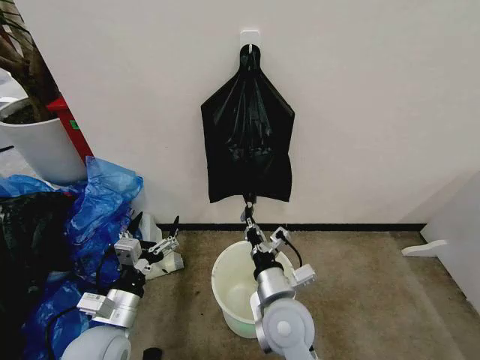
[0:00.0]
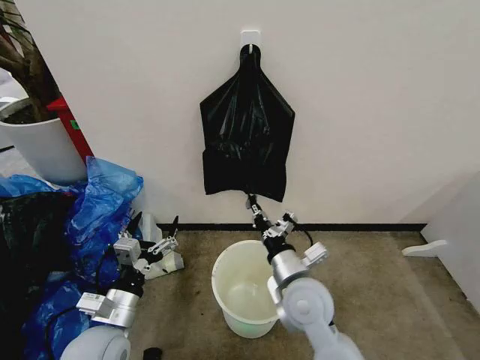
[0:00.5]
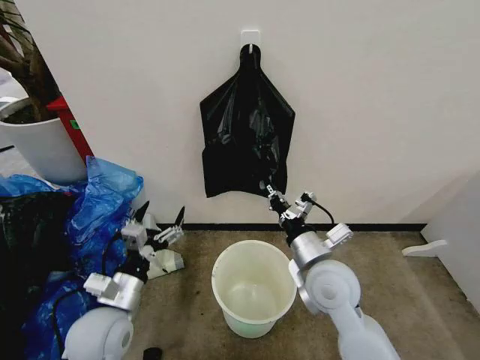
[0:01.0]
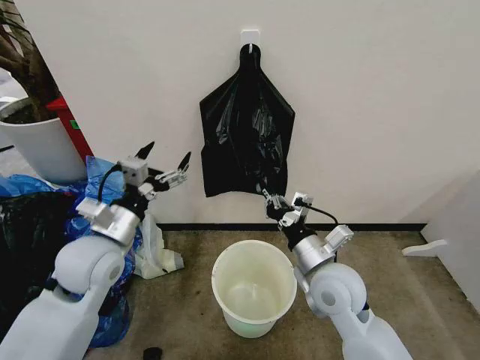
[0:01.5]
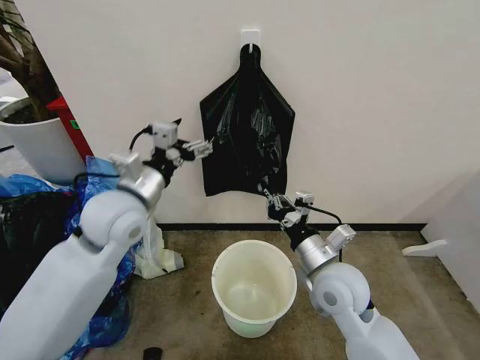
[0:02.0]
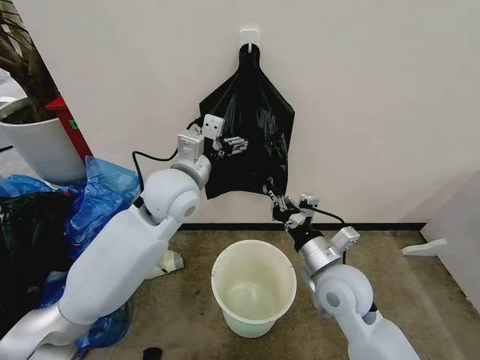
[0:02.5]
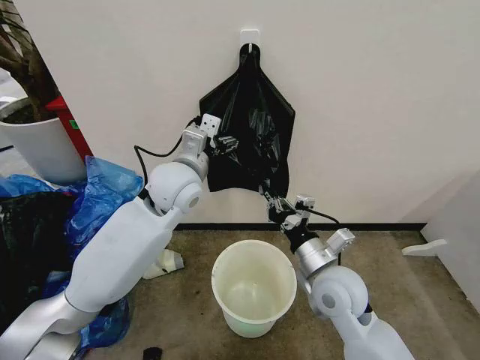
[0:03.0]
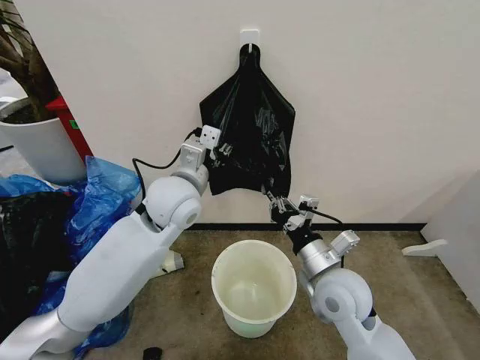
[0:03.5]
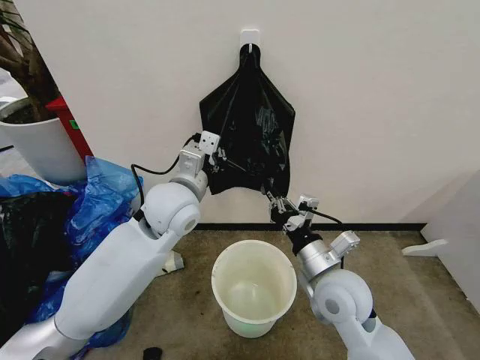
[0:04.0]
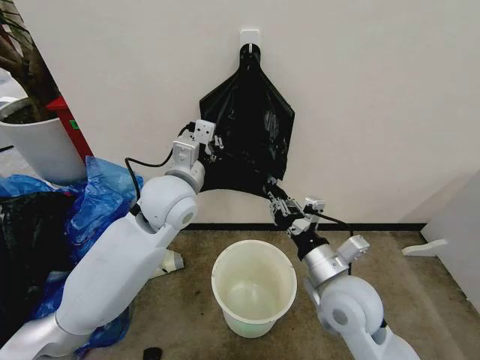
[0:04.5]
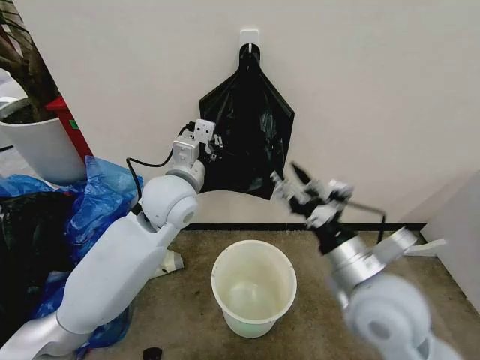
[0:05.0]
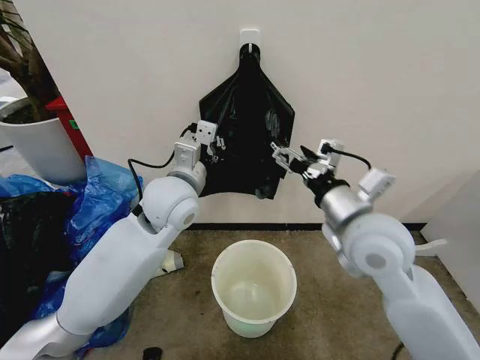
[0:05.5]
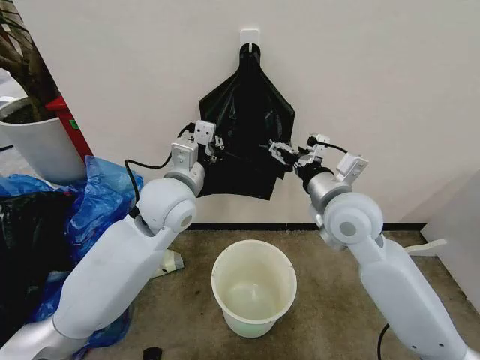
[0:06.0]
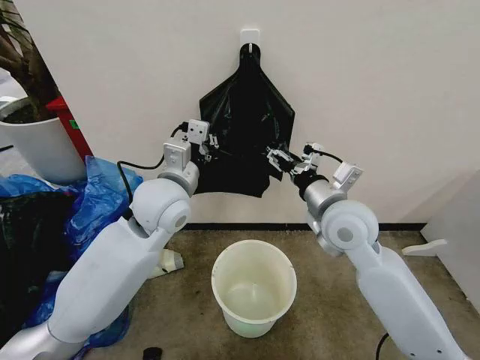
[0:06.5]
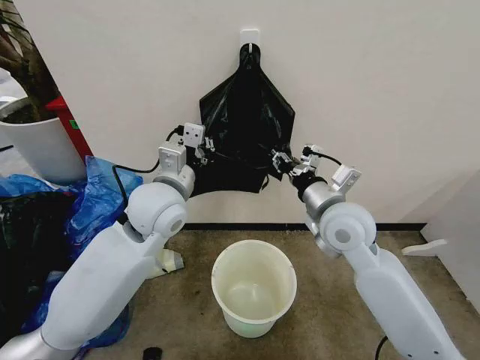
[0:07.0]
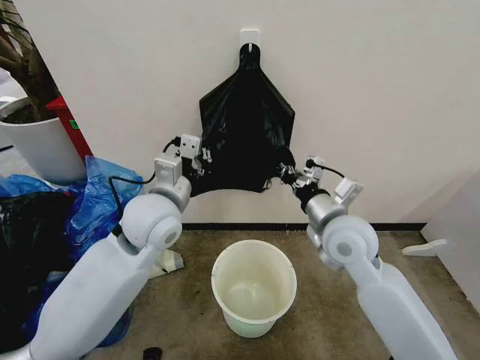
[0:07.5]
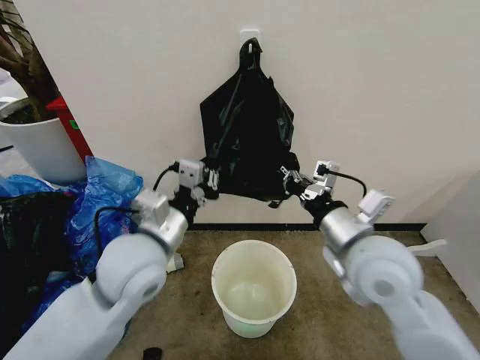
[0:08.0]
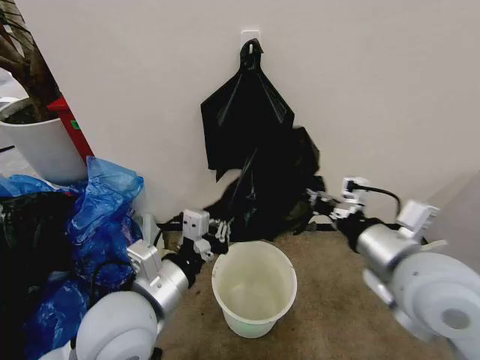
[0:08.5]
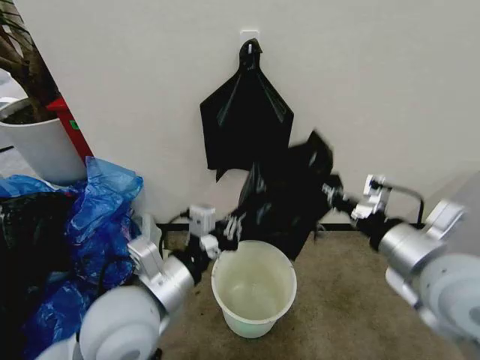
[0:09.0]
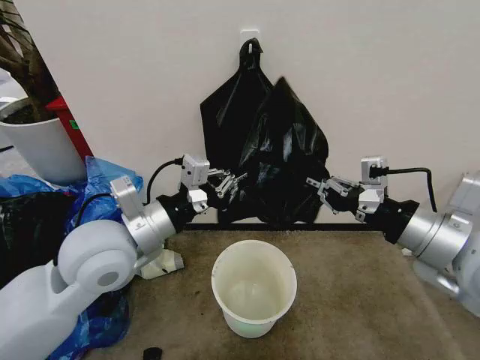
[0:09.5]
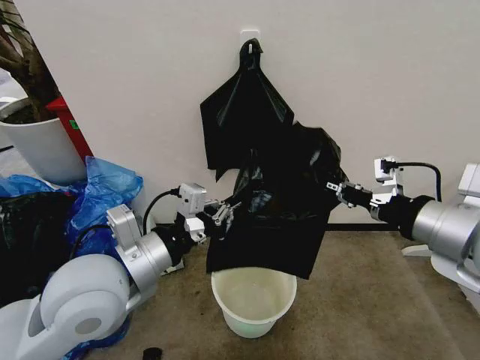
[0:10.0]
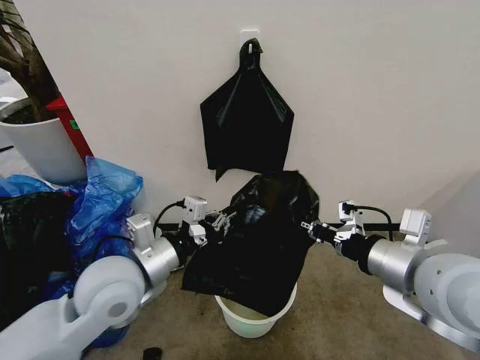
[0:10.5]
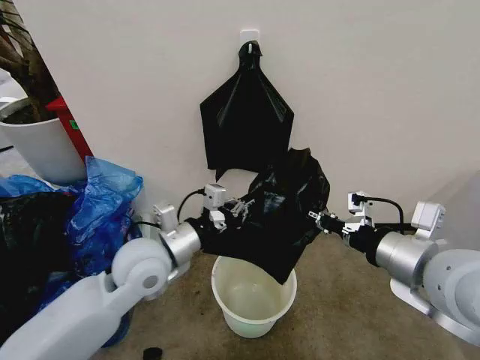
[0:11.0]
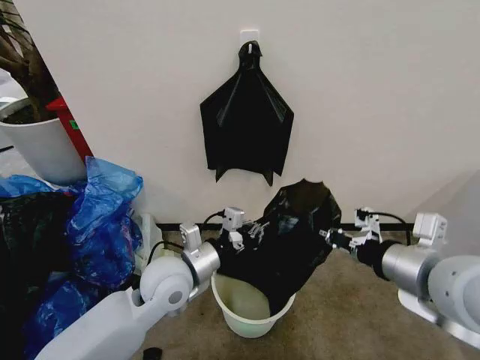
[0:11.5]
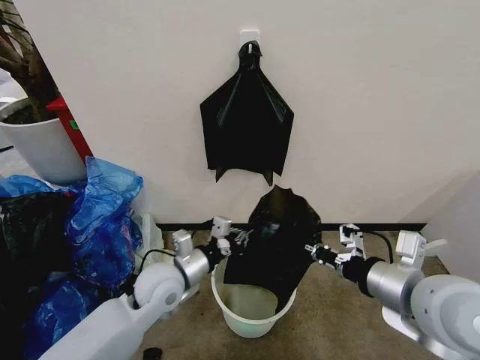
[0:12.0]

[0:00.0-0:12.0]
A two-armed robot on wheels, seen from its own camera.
Task of the whole recording: Place the garbage bag over the trash bin.
0.0 to 2.0 s: The left gripper heads upward and forward, covering about 25 cm, while the right gripper travels to the right, forward and upward by about 15 cm.
2.0 to 4.0 s: The left gripper travels to the right by approximately 10 cm, and closes.
4.0 to 6.0 s: The right gripper goes some 15 cm upward and forward, and opens its fingers.
6.0 to 8.0 s: Both grippers travel together backward, roughly 10 cm. The right gripper closes.
8.0 to 10.0 s: The right gripper is displaced to the right and upward by approximately 15 cm. The left gripper goes forward and backward, some 10 cm each way, reversing 2 times.
10.0 to 12.0 s: The right gripper shifts some 10 cm downward, while the left gripper shifts about 20 cm downward and forward.

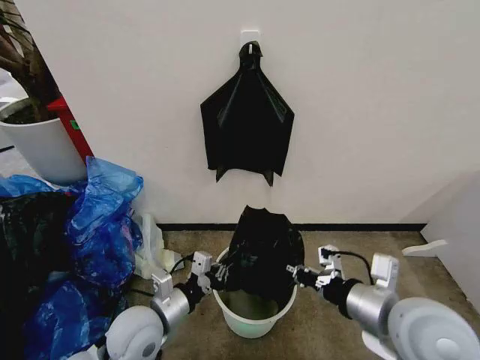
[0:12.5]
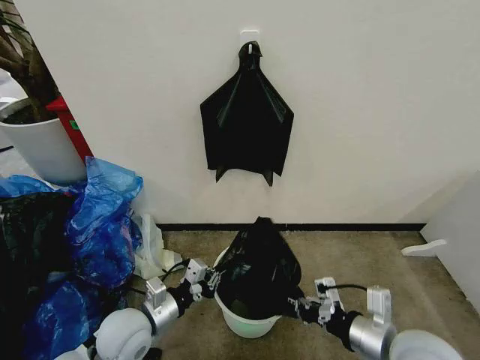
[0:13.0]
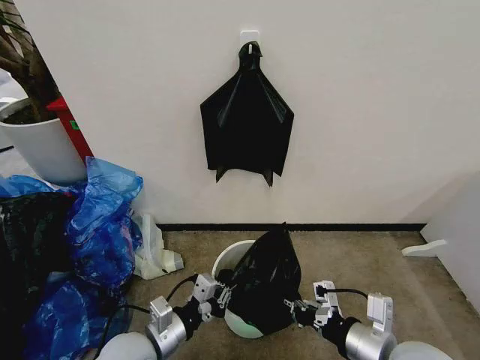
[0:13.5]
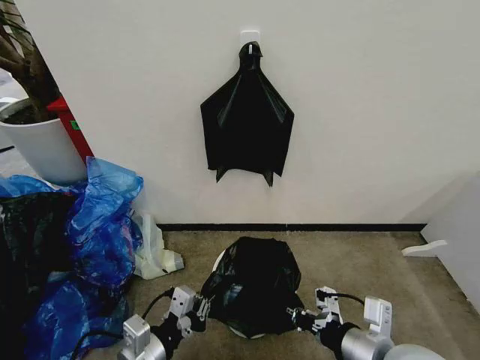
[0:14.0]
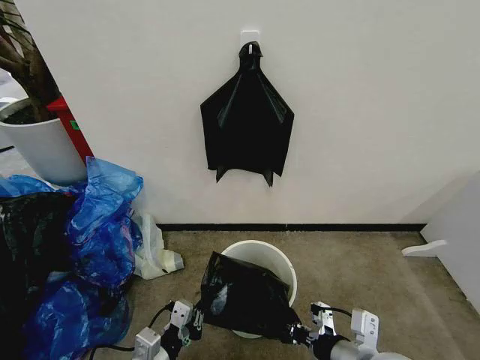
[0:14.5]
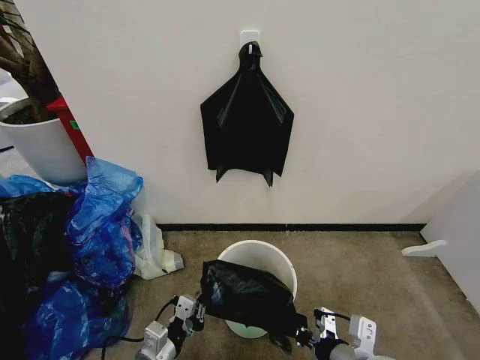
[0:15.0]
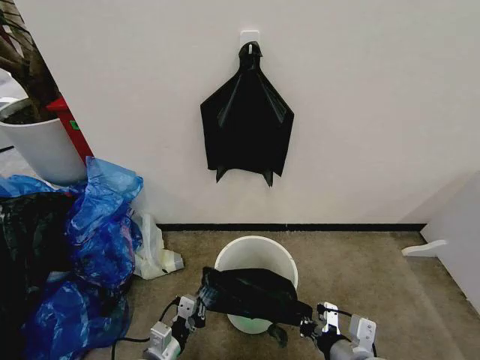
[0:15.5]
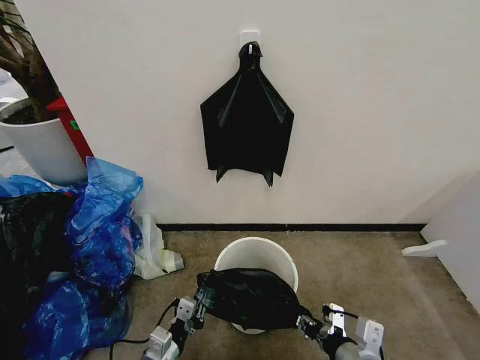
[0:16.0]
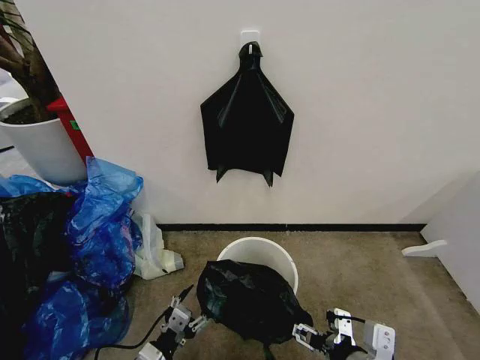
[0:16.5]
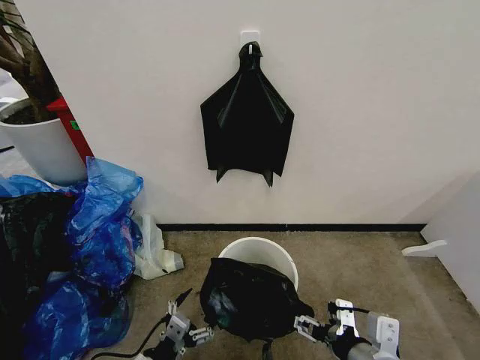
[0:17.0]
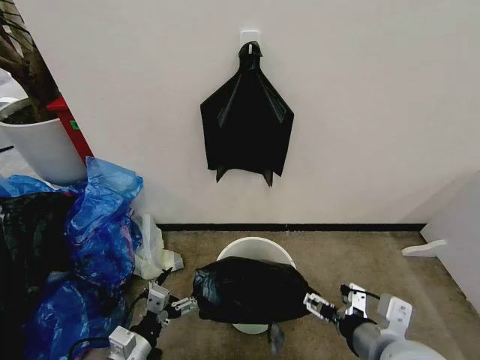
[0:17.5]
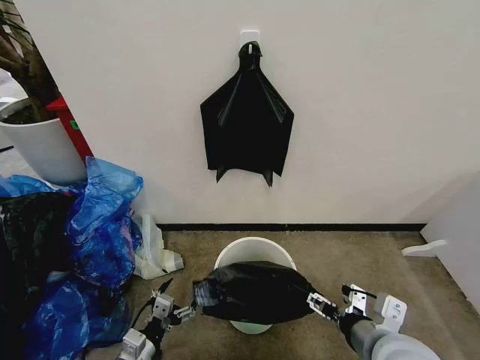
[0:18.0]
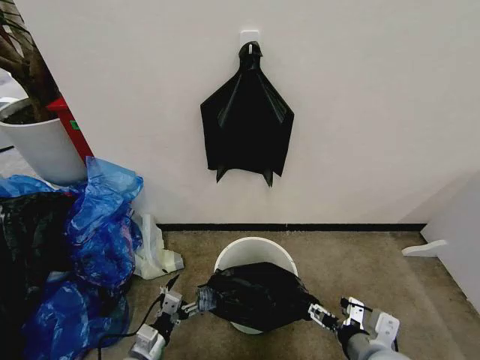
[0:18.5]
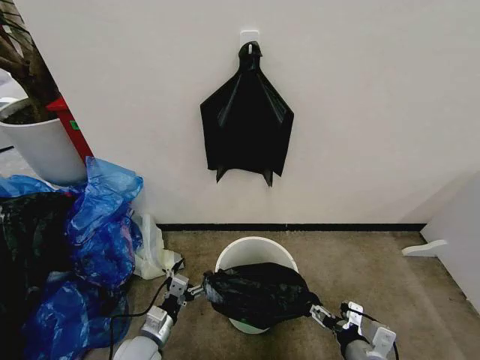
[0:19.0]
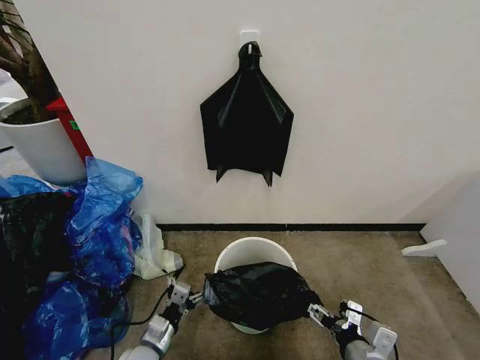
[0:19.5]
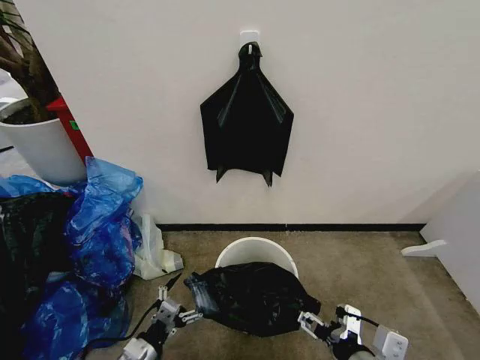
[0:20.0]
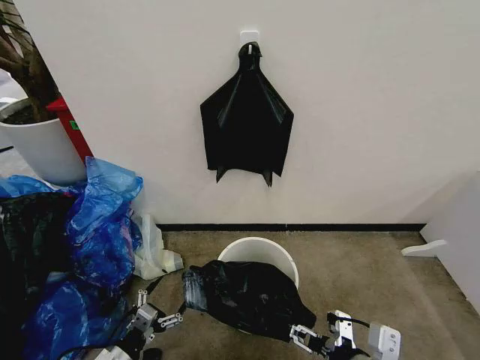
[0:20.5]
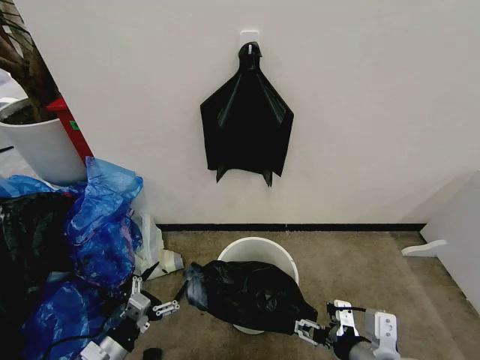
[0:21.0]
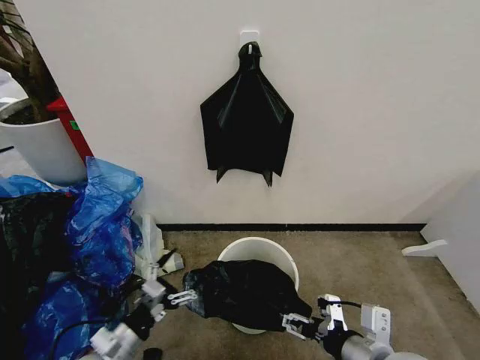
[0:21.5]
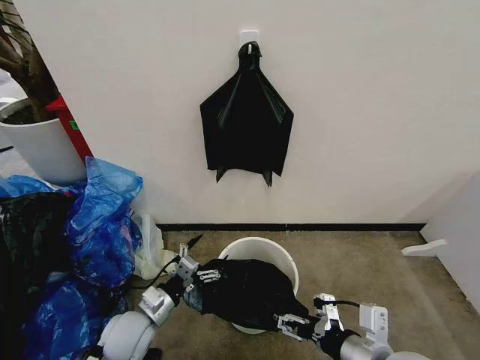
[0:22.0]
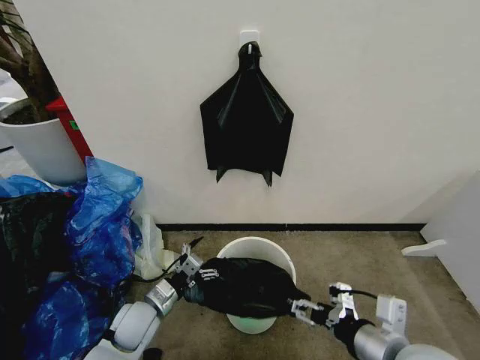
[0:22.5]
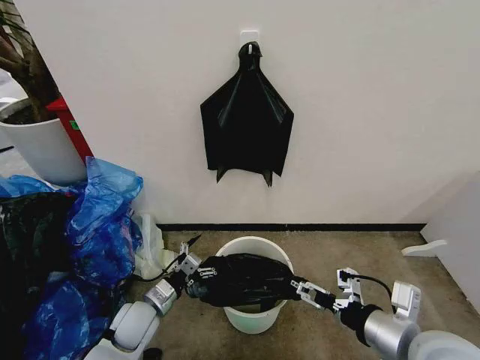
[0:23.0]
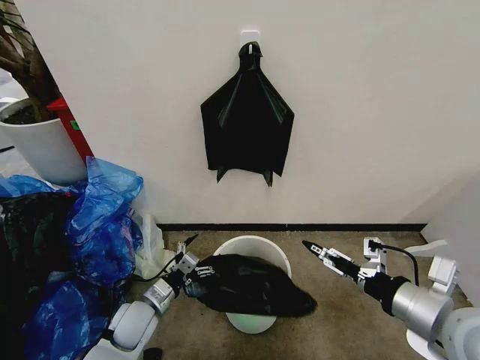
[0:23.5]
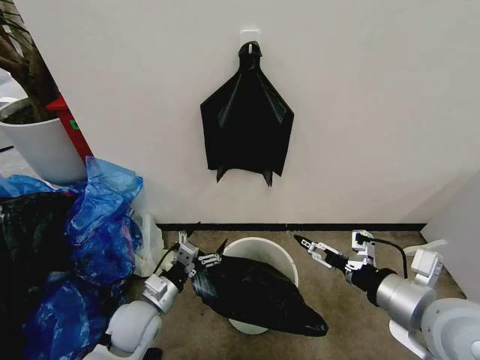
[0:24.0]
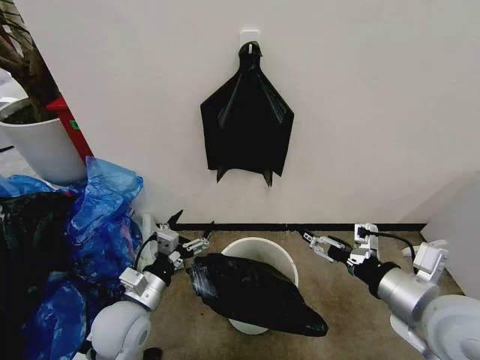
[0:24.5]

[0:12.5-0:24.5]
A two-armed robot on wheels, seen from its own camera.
Task of the whole recording: Place the garbage bag over the trash bin.
12.5 to 14.5 s: The right gripper goes about 10 cm downward and backward, while the left gripper heads backward, covering some 15 cm.
14.5 to 16.5 s: The left gripper goes roughly 5 cm downward, and opens up; the right gripper moves some 10 cm downward and comes back, and opens.
16.5 to 18.5 s: The left gripper goes some 5 cm downward. The right gripper shifts by about 5 cm.
18.5 to 20.5 s: The right gripper heads upward, covering roughly 5 cm. The left gripper shifts approximately 5 cm to the left.
20.5 to 22.5 s: The left gripper is displaced forward and to the right by about 15 cm.
22.5 to 24.5 s: The right gripper shifts approximately 5 cm upward, while the left gripper shifts approximately 10 cm upward.

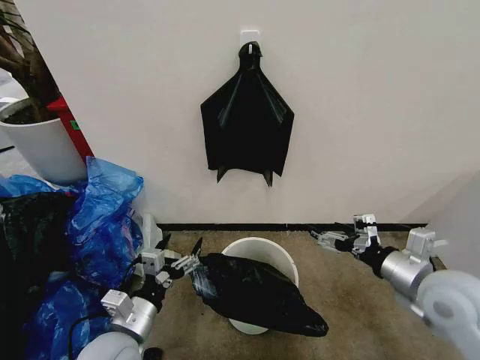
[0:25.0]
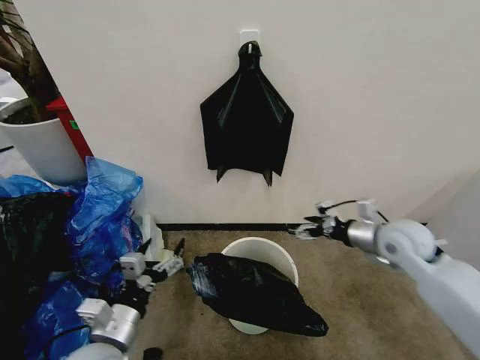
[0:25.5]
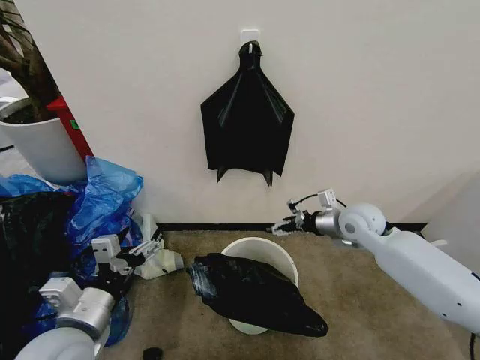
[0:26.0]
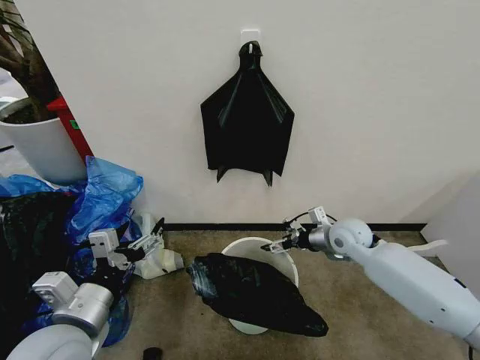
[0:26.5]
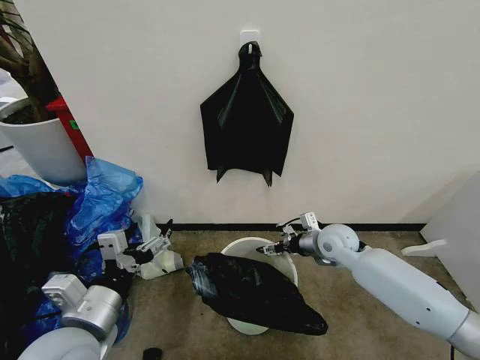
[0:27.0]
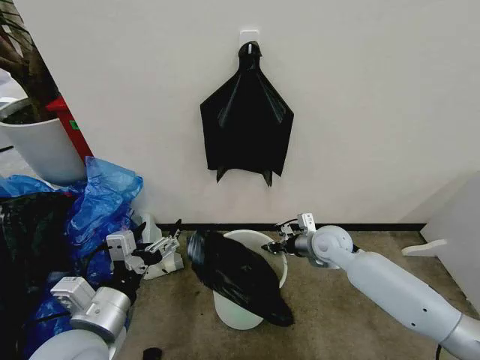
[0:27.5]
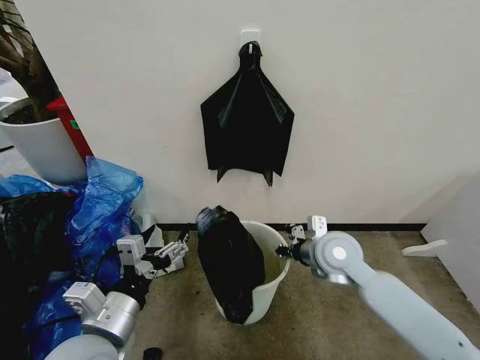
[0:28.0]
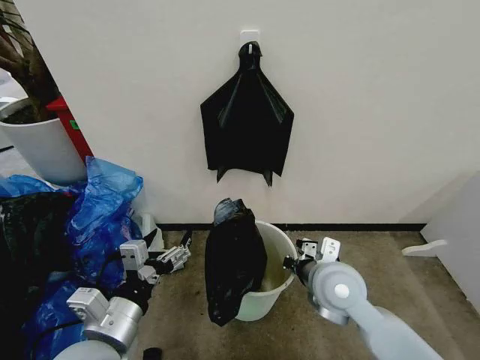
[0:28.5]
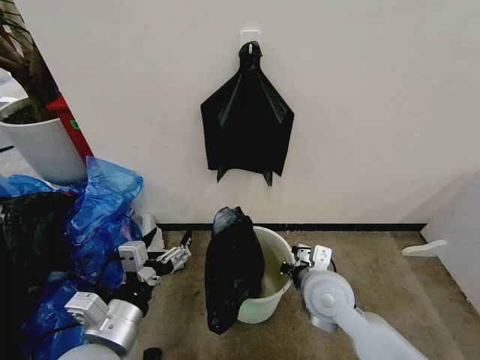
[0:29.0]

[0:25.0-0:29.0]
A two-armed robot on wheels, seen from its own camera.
Task of the whole recording: Place the garbage bag over the trash bin.
25.0 to 27.0 s: The left gripper moves upward, roughly 10 cm, while the right gripper heads forward, downward and to the left, covering approximately 25 cm.
27.0 to 29.0 s: The right gripper moves backward and to the left, approximately 15 cm, and closes up.
